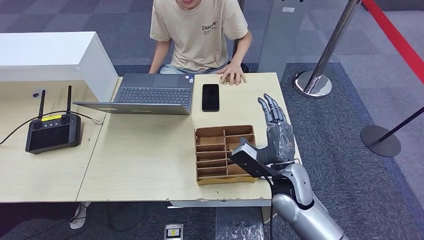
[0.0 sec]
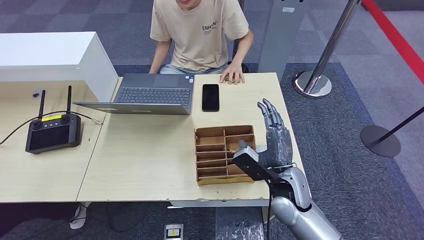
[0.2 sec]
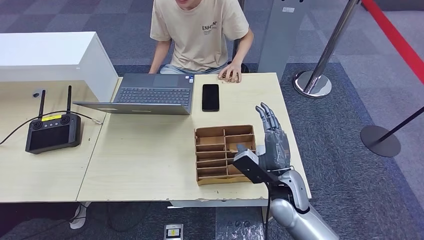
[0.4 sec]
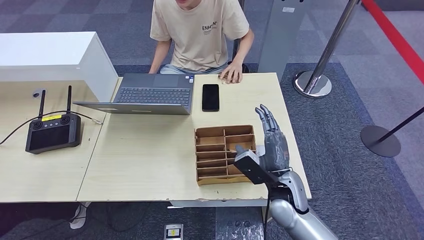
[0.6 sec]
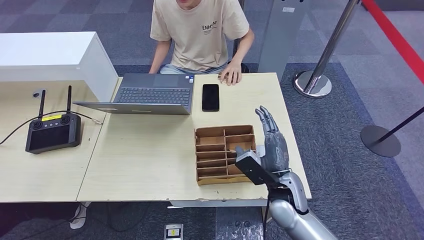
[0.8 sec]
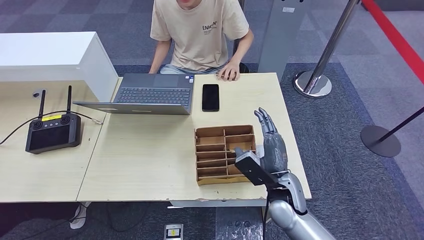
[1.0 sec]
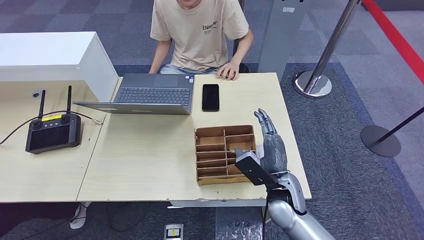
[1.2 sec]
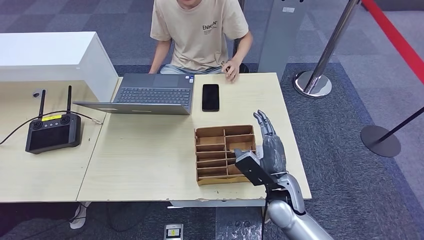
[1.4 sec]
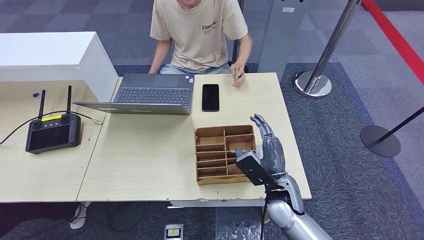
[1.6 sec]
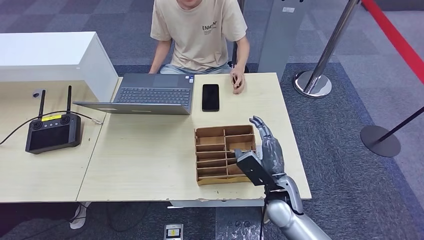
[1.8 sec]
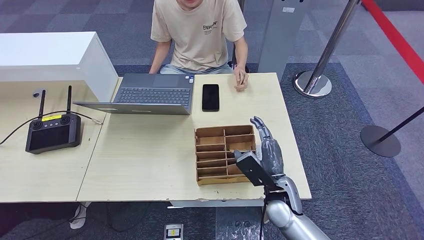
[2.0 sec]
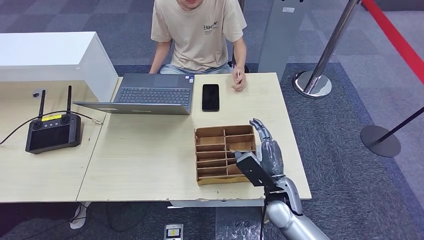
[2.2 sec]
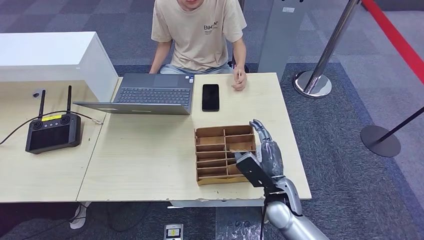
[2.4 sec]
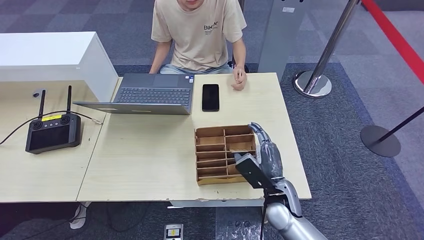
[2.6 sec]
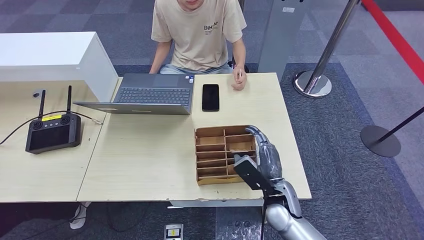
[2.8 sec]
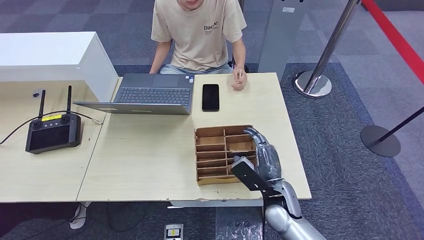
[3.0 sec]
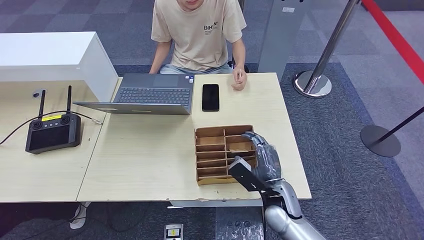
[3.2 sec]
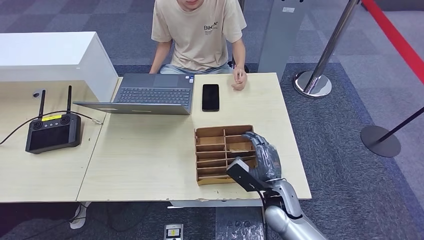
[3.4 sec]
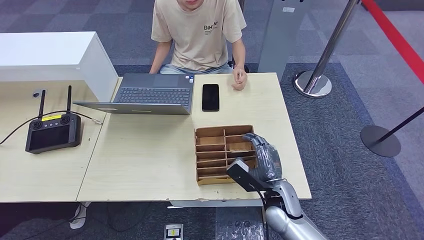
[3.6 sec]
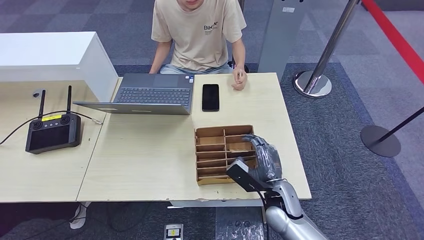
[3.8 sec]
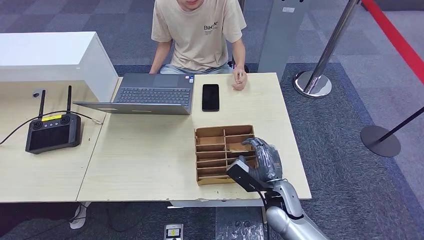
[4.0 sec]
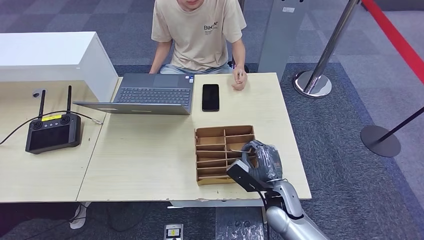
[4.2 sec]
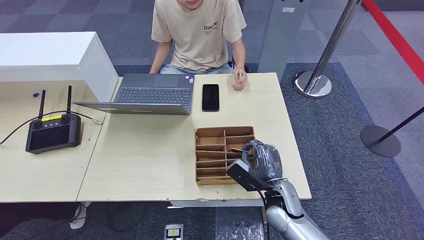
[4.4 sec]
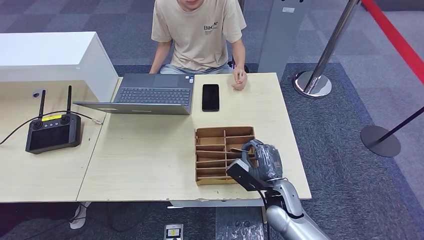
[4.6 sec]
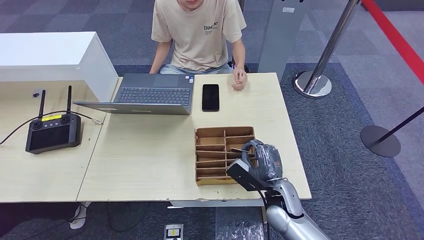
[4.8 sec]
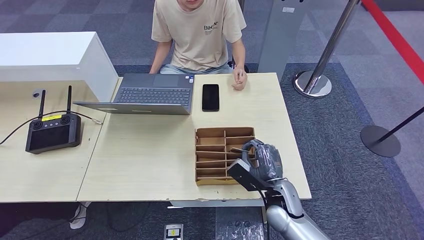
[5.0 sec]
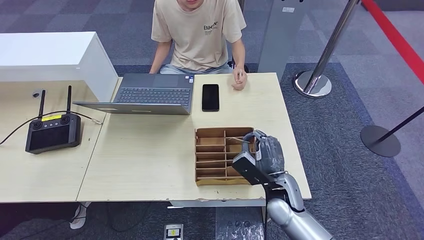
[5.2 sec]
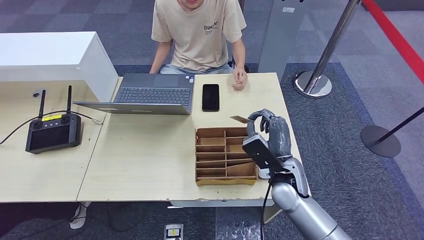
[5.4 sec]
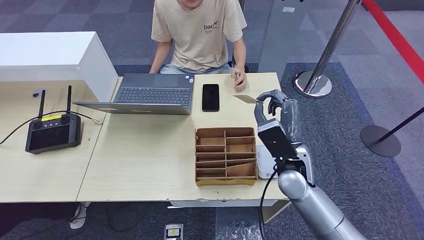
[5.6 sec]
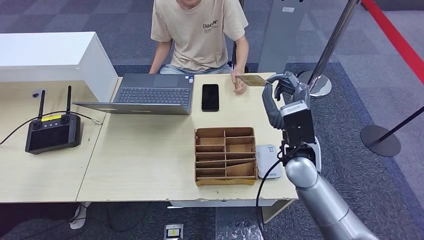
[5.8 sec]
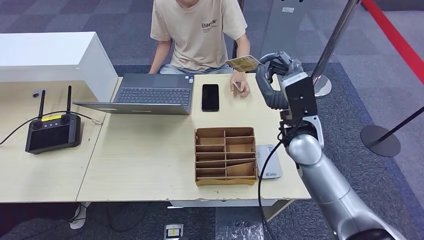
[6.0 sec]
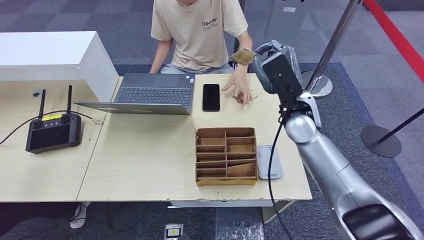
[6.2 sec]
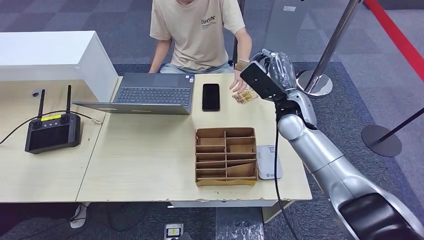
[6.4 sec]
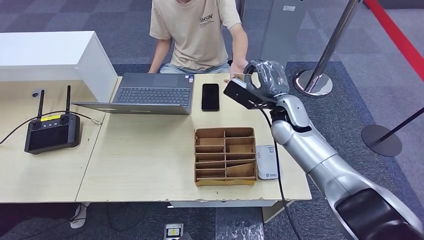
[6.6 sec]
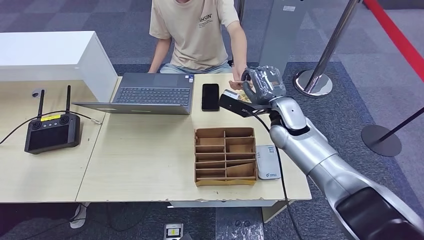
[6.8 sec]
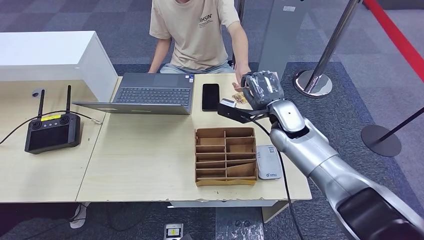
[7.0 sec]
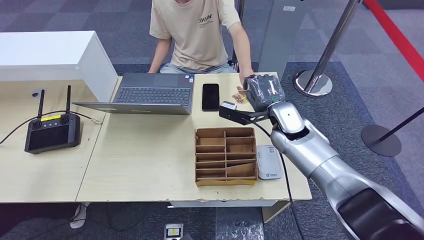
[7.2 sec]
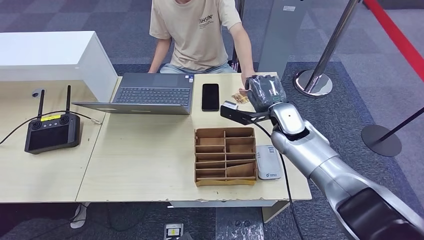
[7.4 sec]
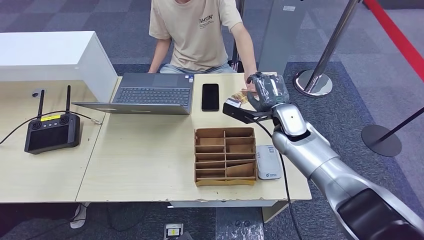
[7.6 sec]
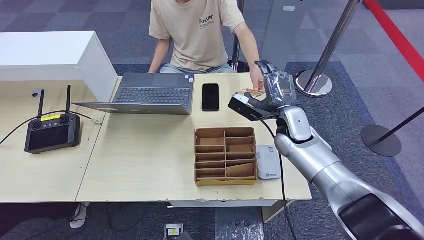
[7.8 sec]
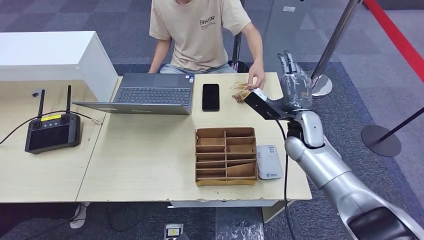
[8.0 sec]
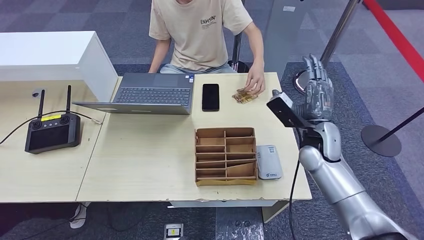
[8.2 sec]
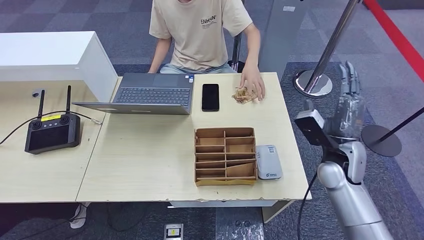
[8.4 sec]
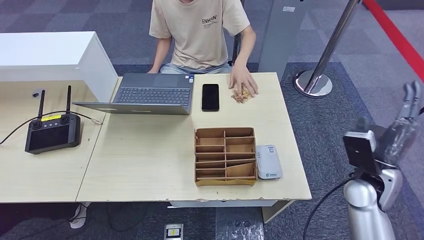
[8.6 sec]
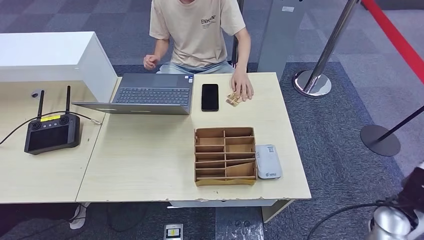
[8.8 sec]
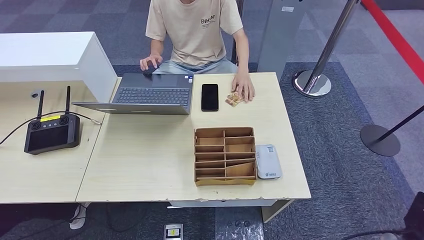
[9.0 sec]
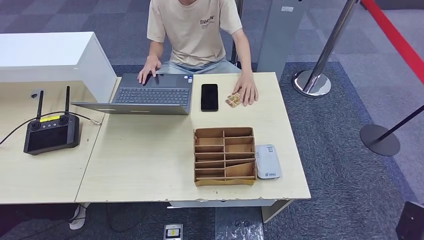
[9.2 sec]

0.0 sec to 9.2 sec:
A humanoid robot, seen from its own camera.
Step, 0.0 sec to 5.6 sec: Pick up the room key from the key card box.
Step, 6.0 sec to 9.2 sec: Hand the room key to the person.
0.0 sec to 1.6 sec: The hands move only a little.
1.6 sec to 4.6 sec: The hands stay close to where they were, moving slightly.
4.6 sec to 6.2 sec: The right hand is displaced upward and forward by about 25 cm.
6.2 sec to 7.6 sec: The right hand shifts about 5 cm downward.
7.6 sec to 9.2 sec: The right hand travels backward, to the right and downward by approximately 40 cm.
